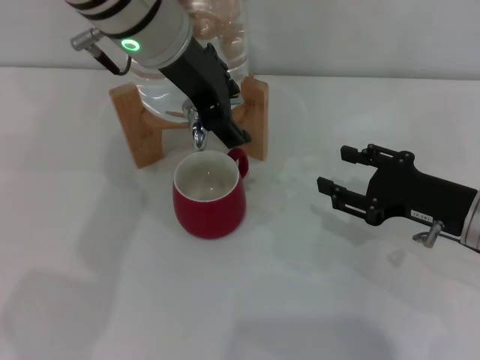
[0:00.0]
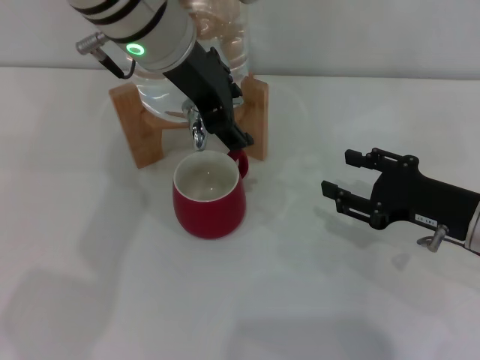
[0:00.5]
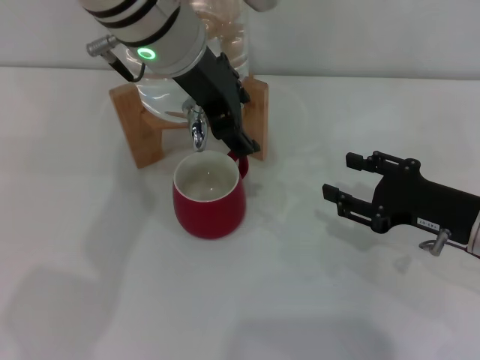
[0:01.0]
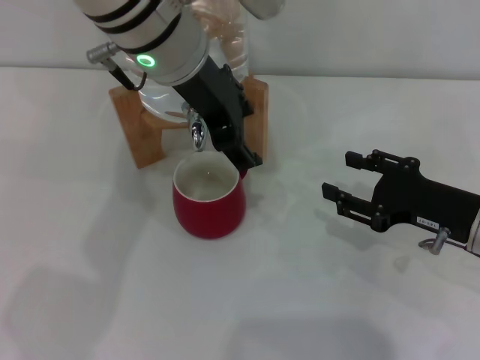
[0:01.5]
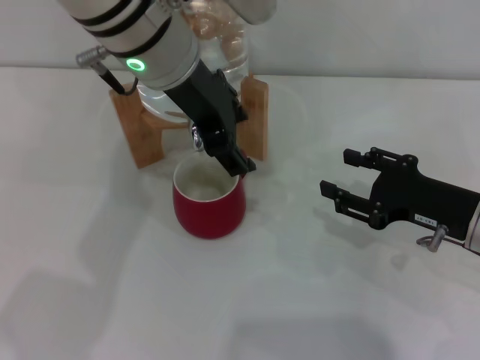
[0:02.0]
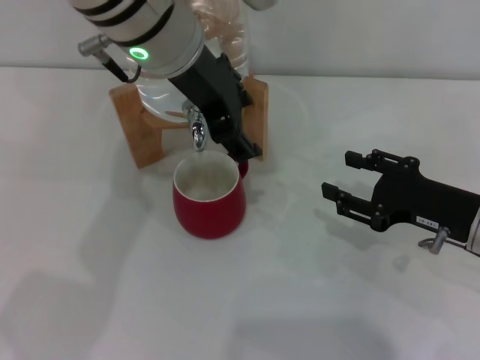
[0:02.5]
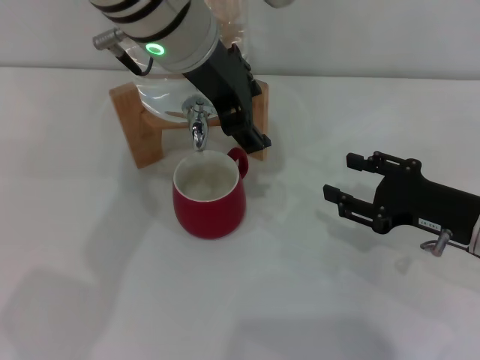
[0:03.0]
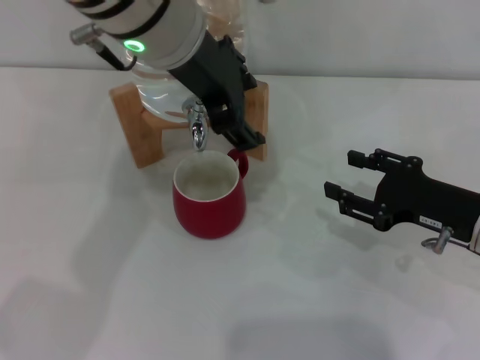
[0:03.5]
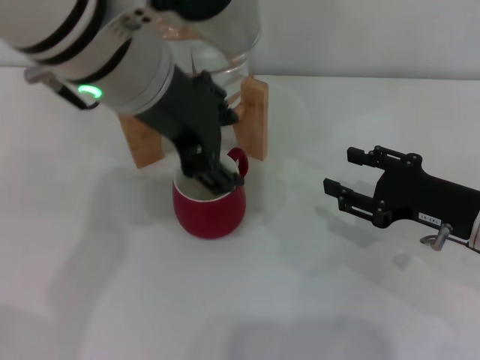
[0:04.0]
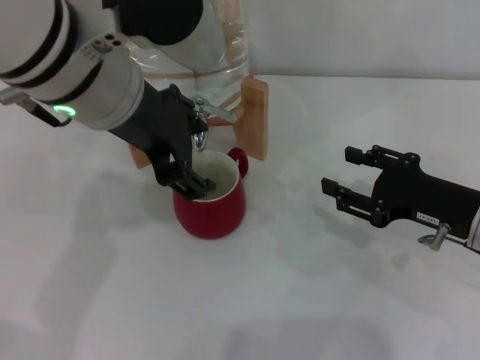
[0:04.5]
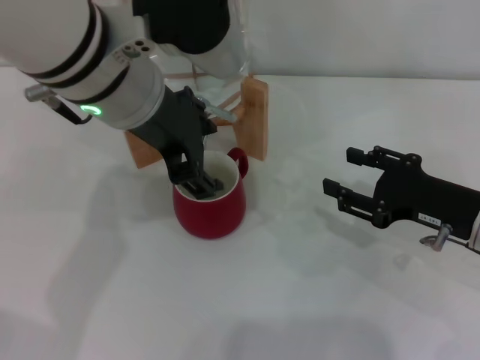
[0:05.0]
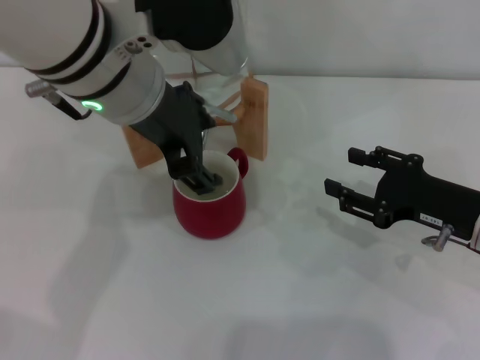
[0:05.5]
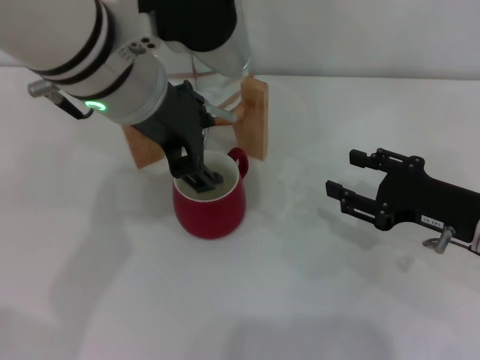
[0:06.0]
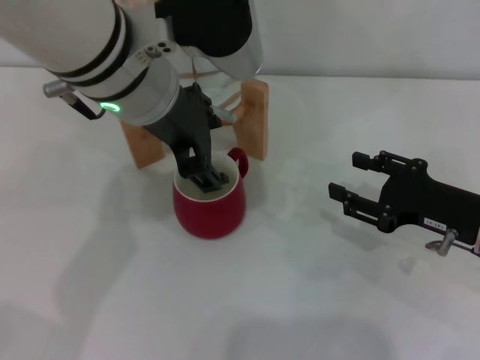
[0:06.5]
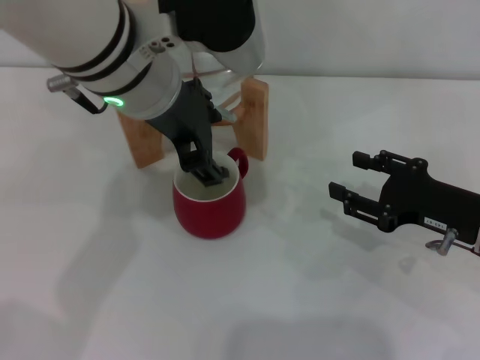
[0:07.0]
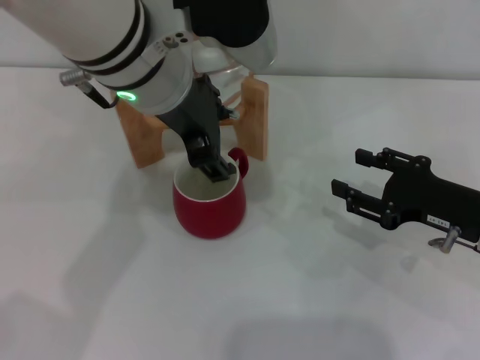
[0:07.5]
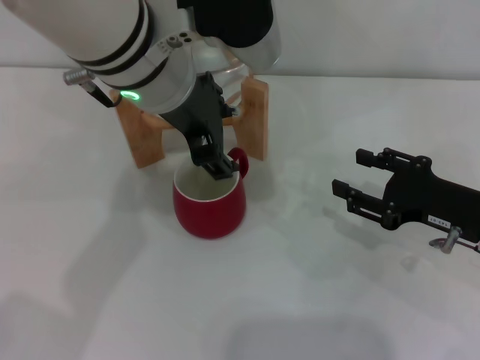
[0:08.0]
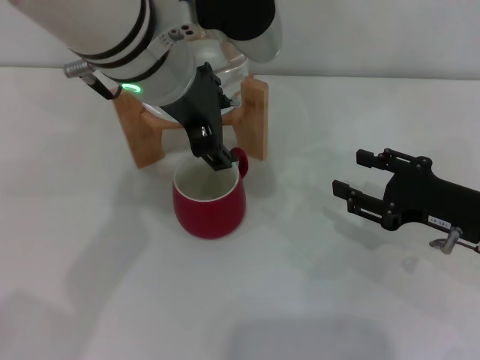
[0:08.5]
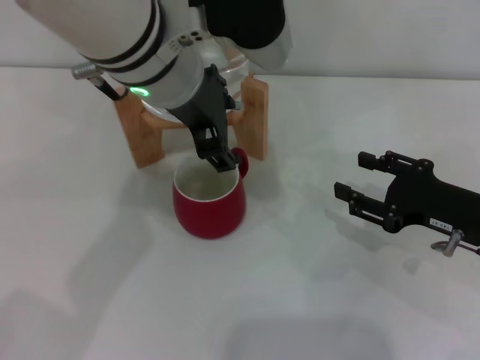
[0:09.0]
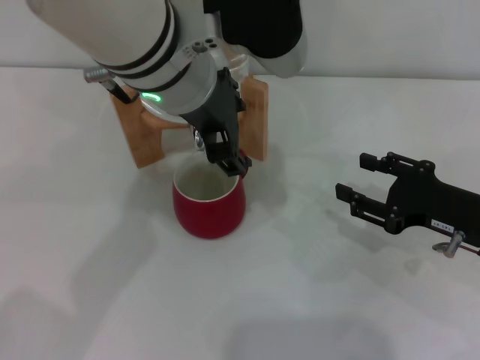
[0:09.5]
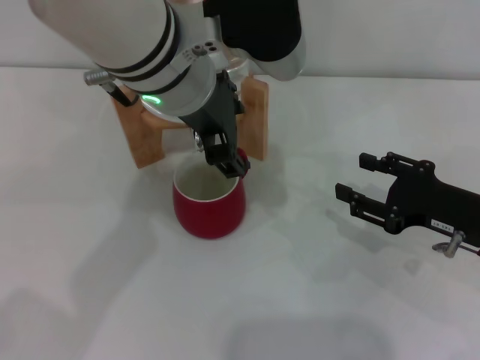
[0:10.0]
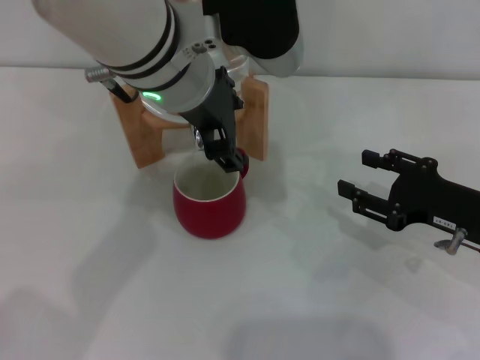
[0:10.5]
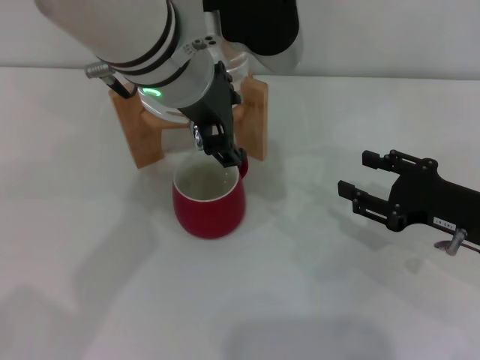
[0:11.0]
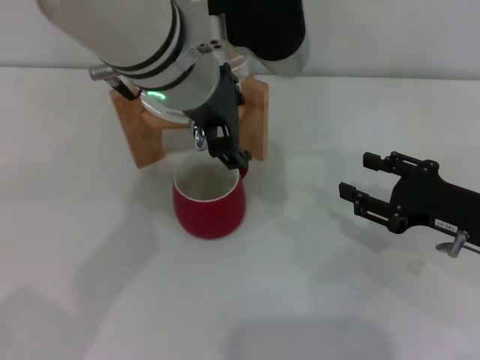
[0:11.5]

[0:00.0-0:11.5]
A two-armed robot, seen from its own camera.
Task of the whole recording: the right gripper pick up the red cup and place it horizontally under the faucet, the left gripper turn on the faucet to fill the cup, and then turn off the faucet.
Step, 0:00.0 to 0:06.0: Open the dispenser valve and fill the cup with water with the left gripper.
0:00.0 to 0:02.0: The grippers make only small movements.
0:02.0 to 0:04.0: The left gripper shifts approximately 5 cm backward.
0:04.0 to 0:09.5: The grippers stay close to where they were, moving slightly.
0:09.5 to 0:11.5: Both grippers stay about where they are.

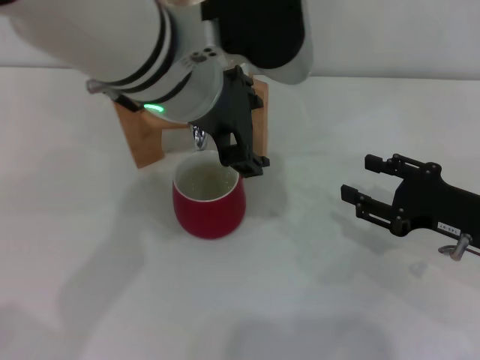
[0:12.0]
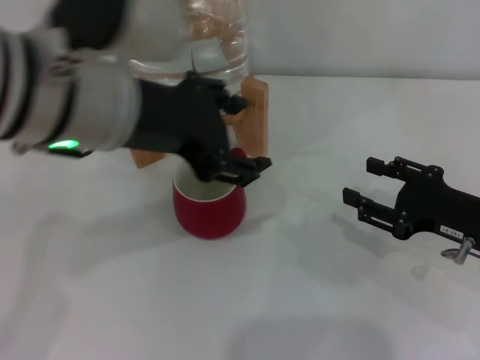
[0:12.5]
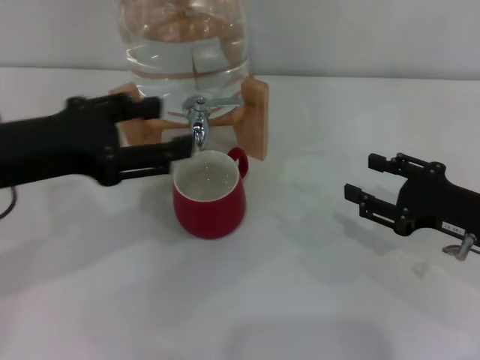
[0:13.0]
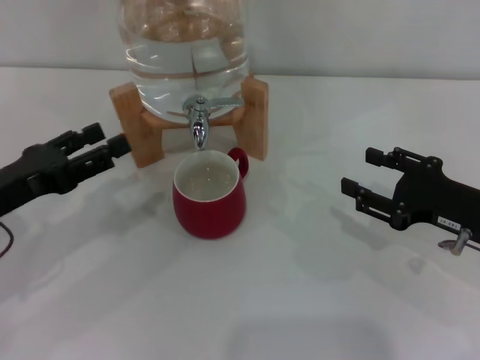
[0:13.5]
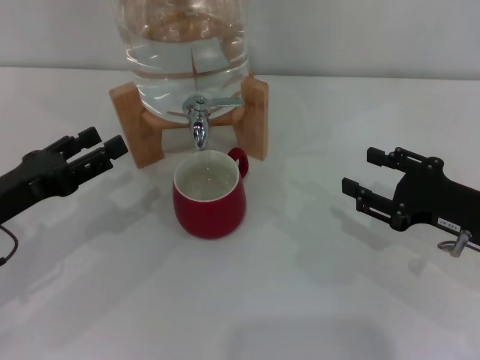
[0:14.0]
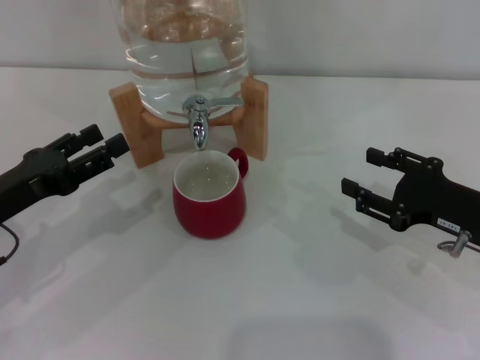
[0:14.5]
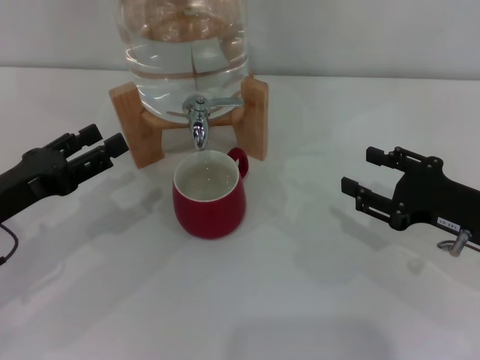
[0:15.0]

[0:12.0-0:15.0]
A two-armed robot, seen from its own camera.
Task of the whole recording: the right gripper pick up the red cup and place it horizontally under the faucet, the left gripper turn on the faucet to fill the cup, and then turn off the faucet.
0:12.0 to 0:13.5: The left gripper shifts about 30 cm to the left and downward.
0:13.5 to 0:15.0: The grippers move only a little.

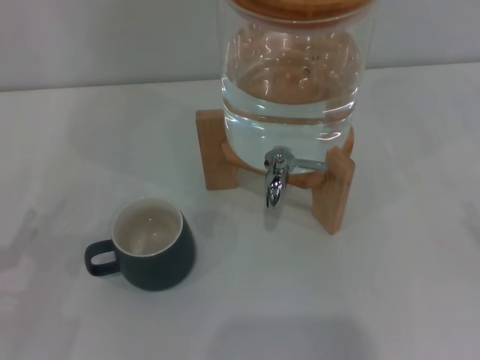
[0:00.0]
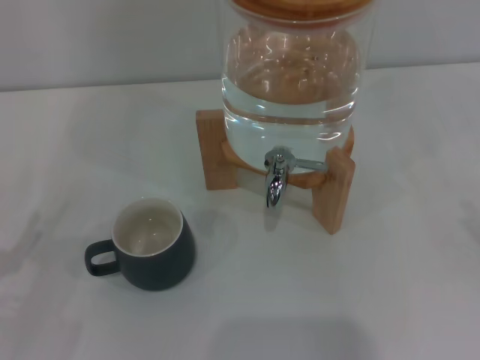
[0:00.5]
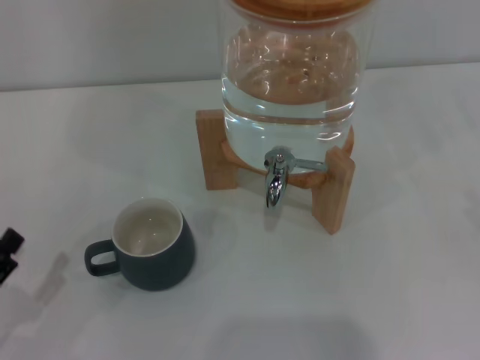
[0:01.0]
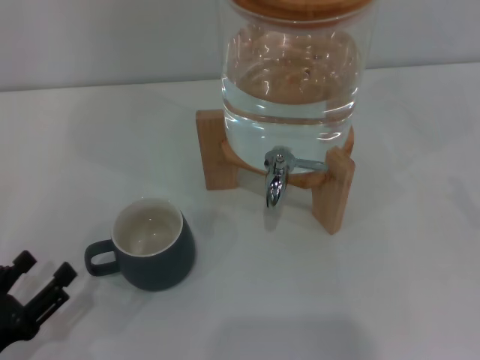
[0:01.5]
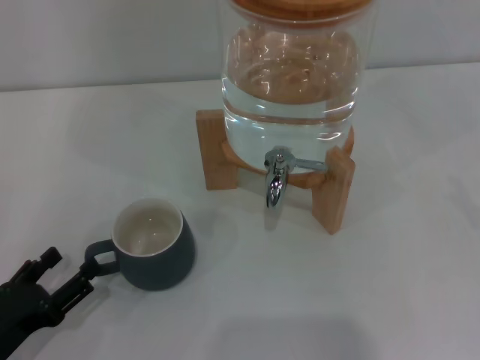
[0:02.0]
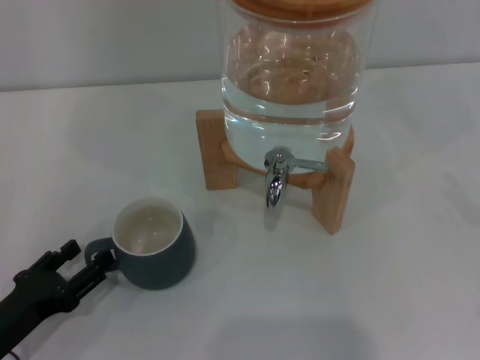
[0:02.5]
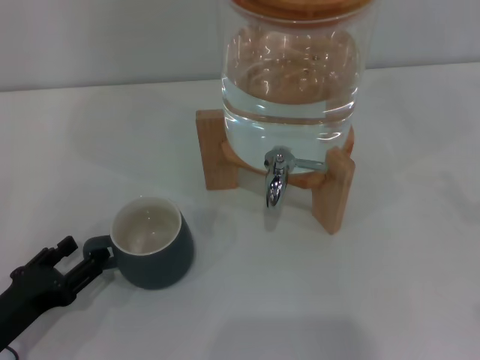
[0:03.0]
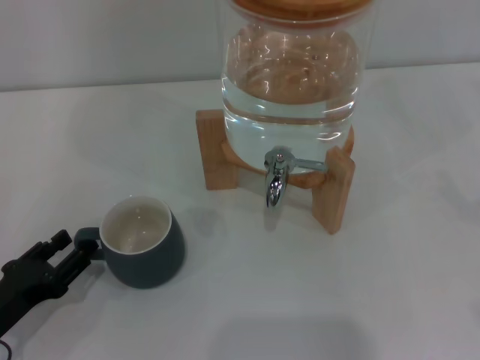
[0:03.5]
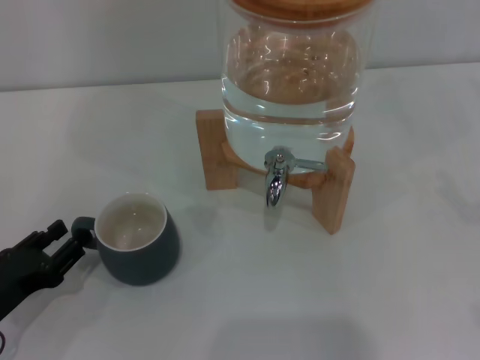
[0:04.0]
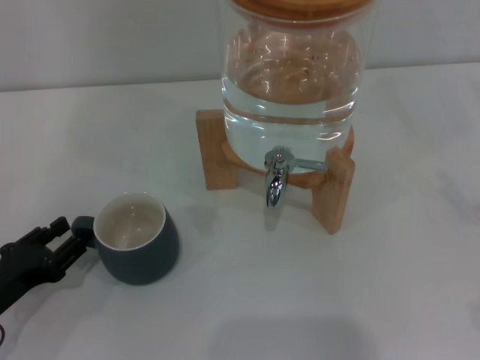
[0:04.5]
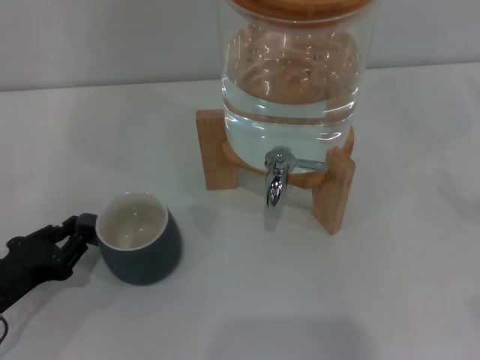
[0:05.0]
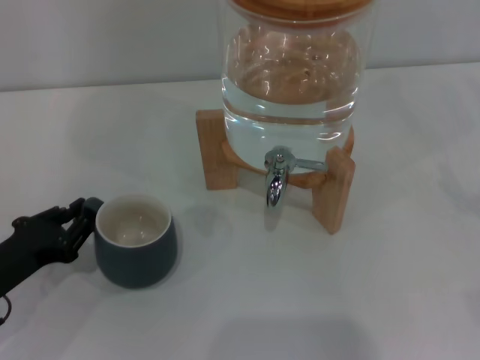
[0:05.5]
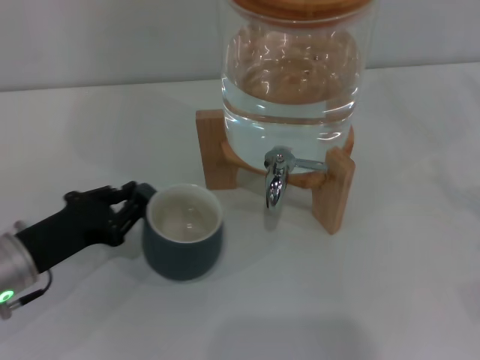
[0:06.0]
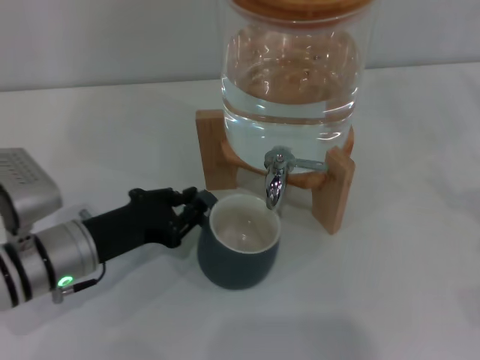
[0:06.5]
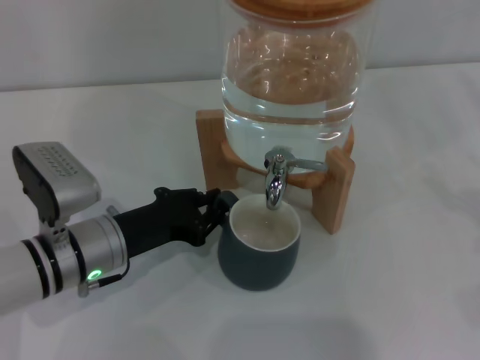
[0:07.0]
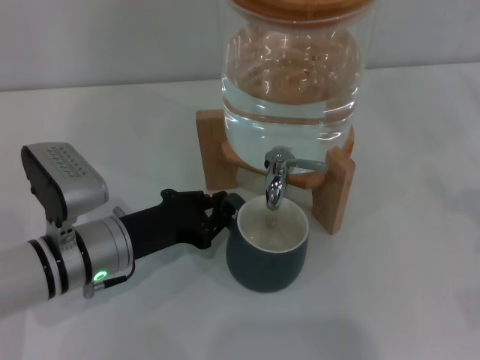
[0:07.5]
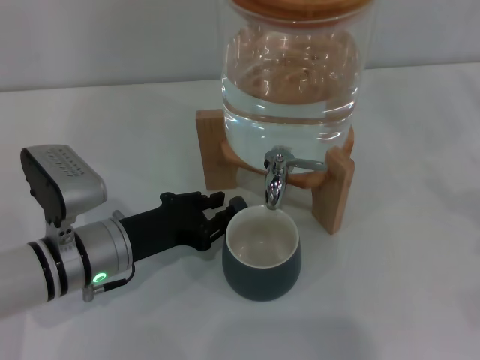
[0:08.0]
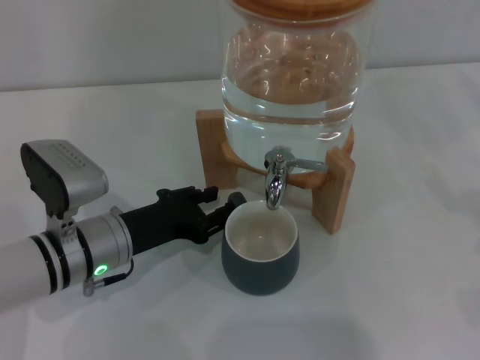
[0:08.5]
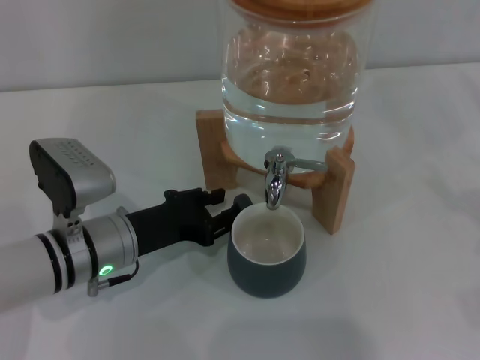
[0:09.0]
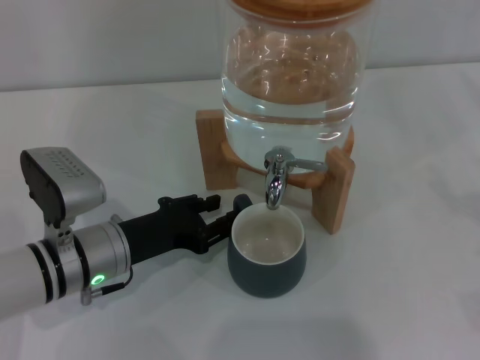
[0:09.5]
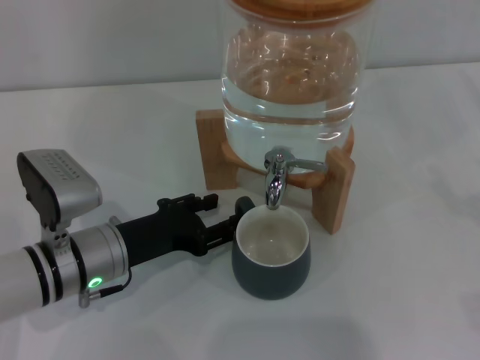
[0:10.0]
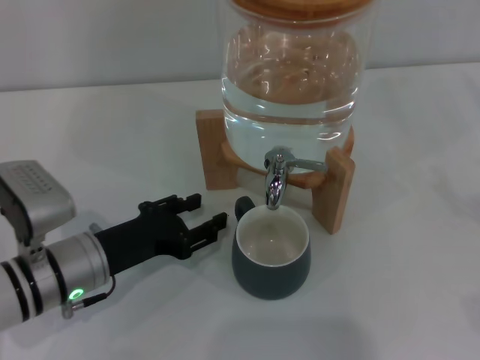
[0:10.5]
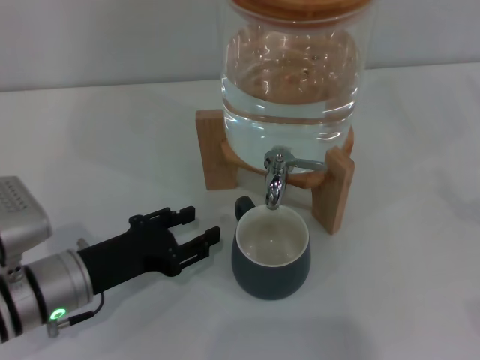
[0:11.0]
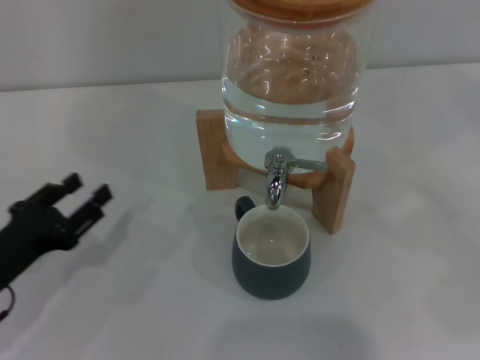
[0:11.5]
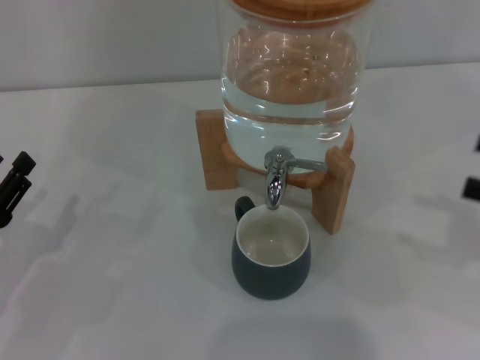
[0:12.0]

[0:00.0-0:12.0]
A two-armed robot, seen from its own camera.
Task of the whole recording: the left gripper pick up the black cup and place it horizontally under the faucet, the right gripper turn on the faucet to fill the cup, and then turn off the faucet.
Step, 0:00.0 to 0:10.5: Move the cup beneath the water dispenser nozzle with the left gripper.
0:00.0 to 0:02.0: The left gripper moves some 5 cm.
0:02.0 to 0:04.0: The left gripper closes up.
0:04.0 to 0:06.0: The left gripper shifts roughly 5 cm forward, and closes up.
0:06.0 to 0:08.0: The left gripper shifts roughly 10 cm to the right.
0:08.0 to 0:10.0: The left gripper opens its fingers.
0:10.0 to 0:12.0: The left gripper is displaced to the left and backward by about 15 cm. The right gripper is displaced upward and to the left by approximately 10 cm.
